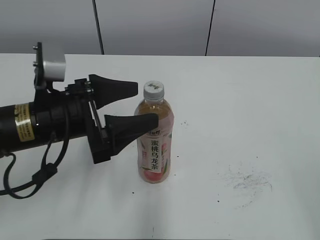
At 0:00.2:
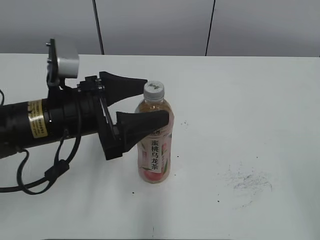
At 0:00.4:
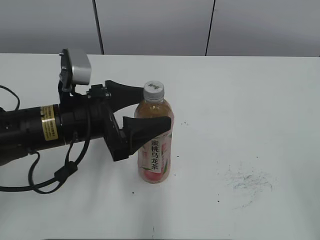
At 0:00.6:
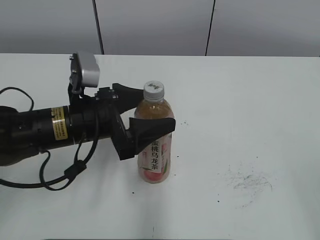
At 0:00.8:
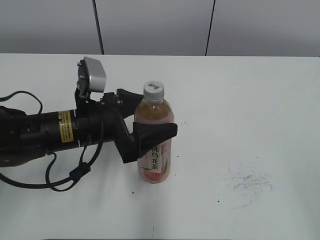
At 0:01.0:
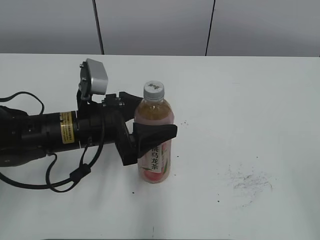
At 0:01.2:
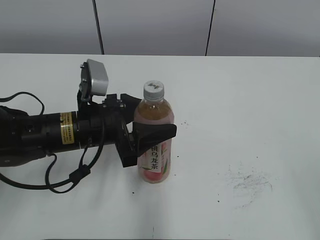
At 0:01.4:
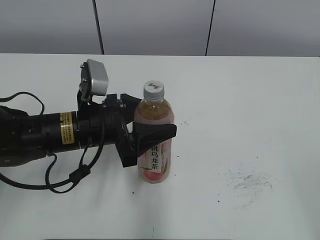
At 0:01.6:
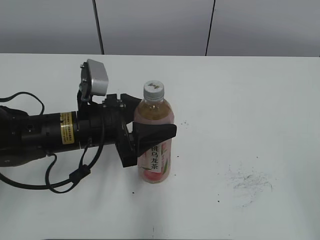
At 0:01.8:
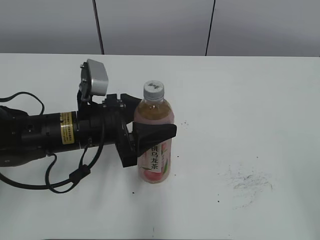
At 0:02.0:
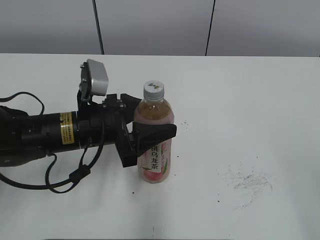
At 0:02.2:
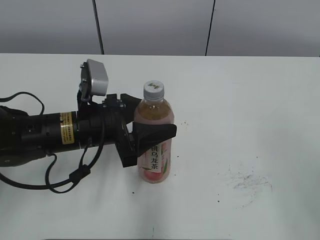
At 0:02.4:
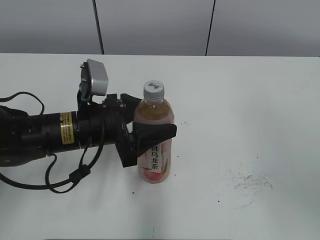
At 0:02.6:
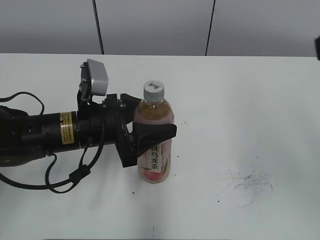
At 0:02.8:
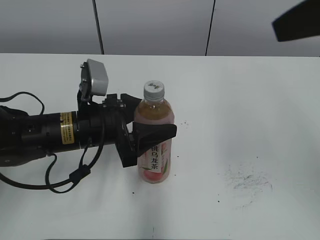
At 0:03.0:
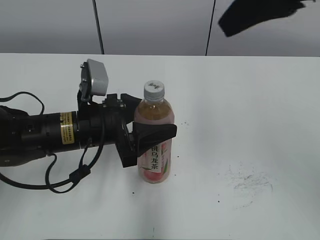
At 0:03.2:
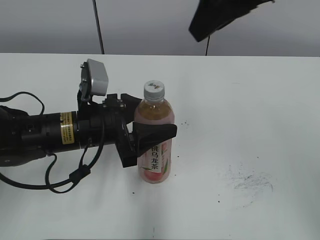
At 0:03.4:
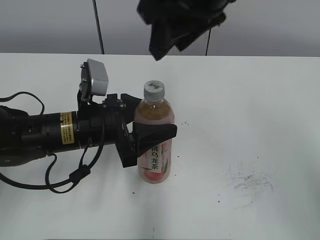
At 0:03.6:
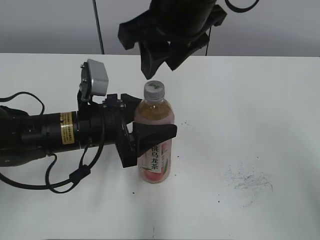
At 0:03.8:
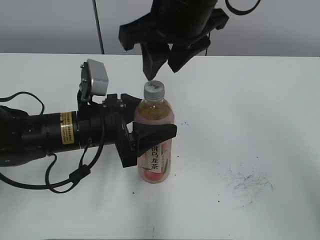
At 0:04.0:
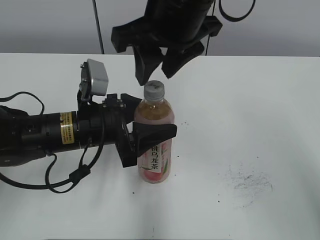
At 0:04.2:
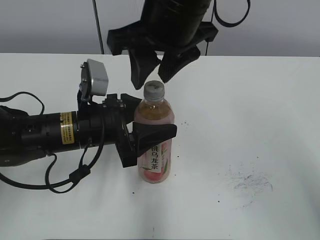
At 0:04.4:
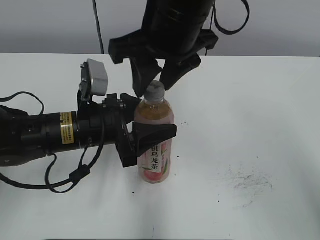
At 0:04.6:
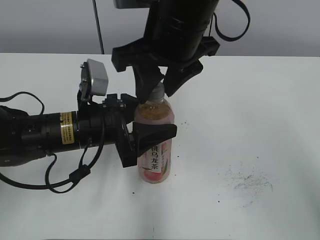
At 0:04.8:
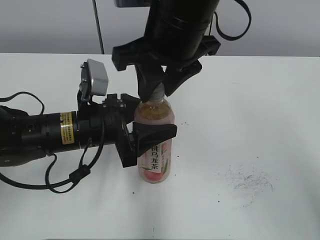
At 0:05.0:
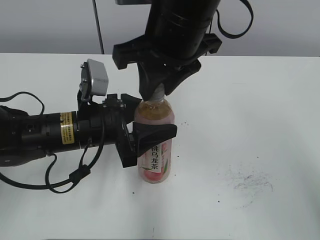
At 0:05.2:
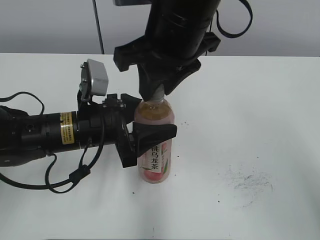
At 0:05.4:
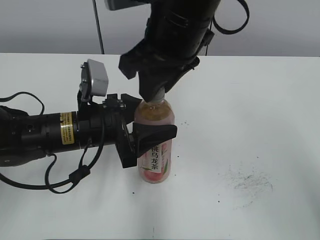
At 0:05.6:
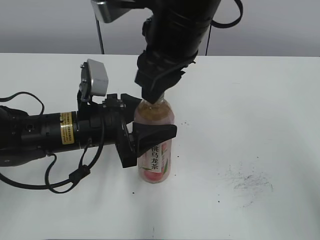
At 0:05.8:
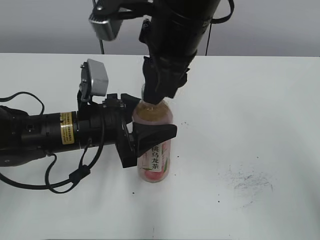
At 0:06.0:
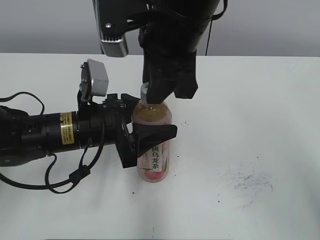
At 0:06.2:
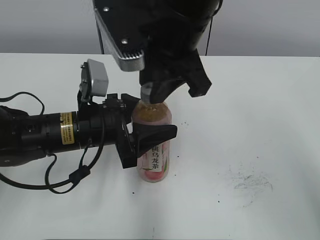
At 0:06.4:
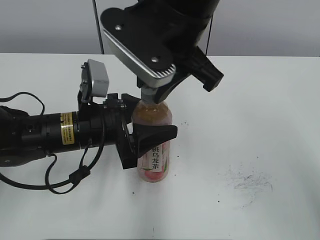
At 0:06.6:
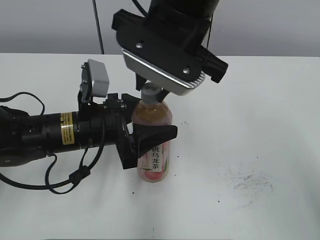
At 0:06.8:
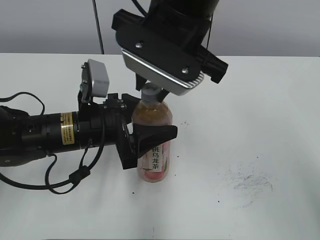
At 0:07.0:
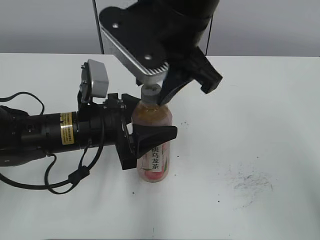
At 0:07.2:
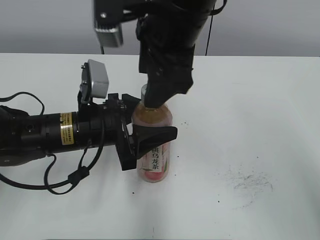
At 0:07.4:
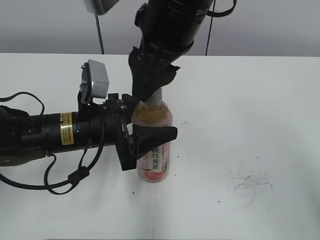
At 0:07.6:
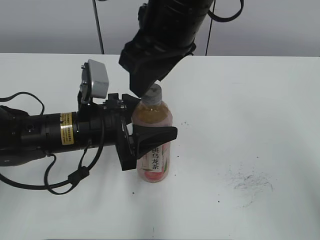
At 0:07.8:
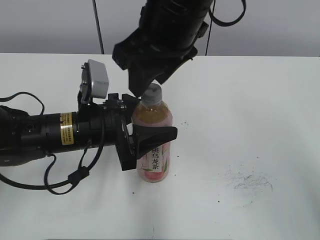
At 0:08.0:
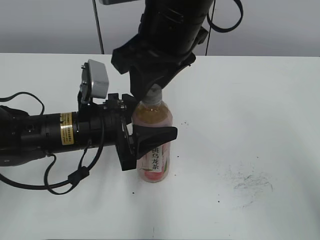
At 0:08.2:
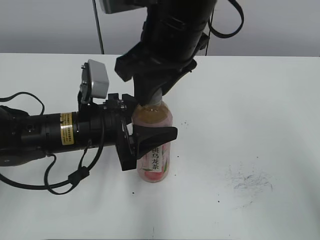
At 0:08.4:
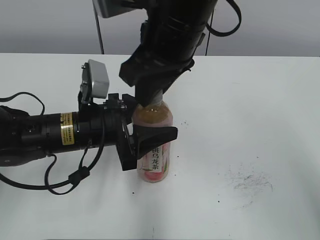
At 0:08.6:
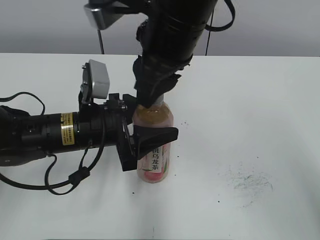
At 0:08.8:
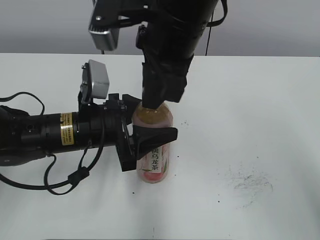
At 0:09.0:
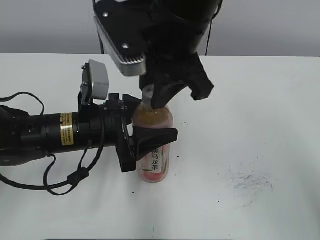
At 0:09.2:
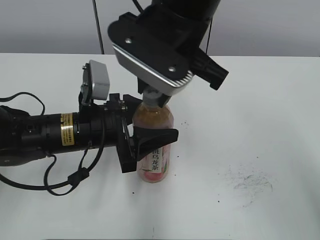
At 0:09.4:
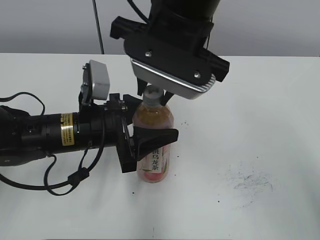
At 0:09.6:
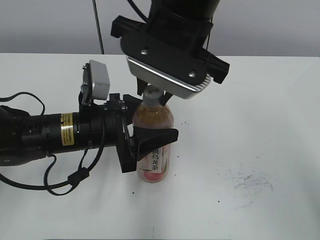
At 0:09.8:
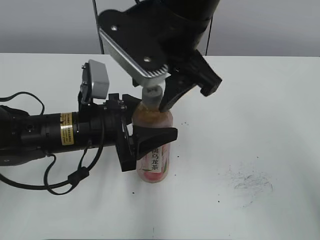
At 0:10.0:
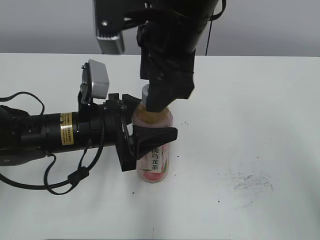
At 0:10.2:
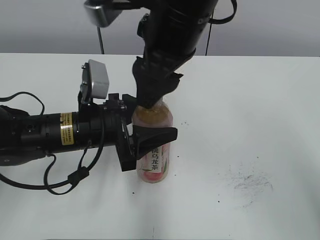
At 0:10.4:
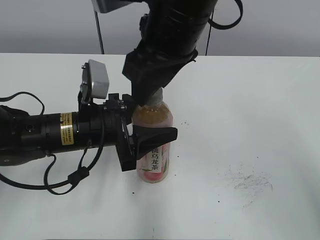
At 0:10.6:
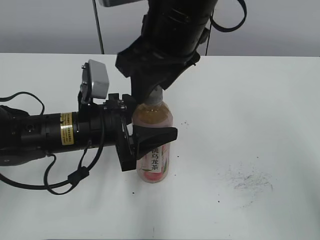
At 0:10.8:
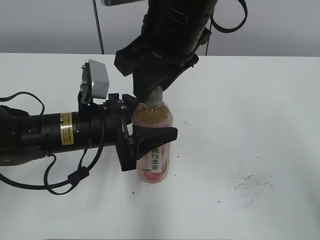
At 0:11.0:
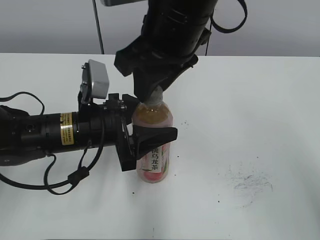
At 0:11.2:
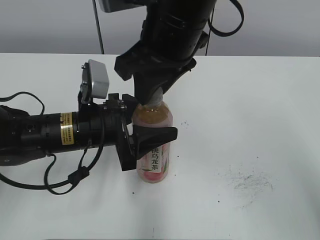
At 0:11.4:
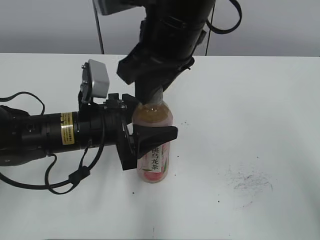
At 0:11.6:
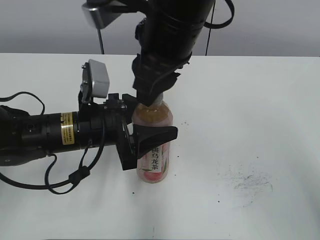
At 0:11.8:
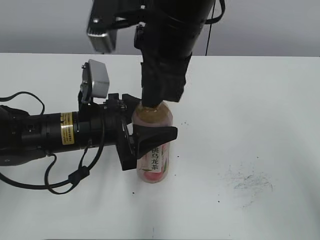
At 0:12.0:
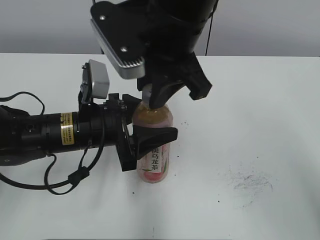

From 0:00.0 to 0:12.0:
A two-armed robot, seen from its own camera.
From 0:00.0 to 0:01.6: The left gripper moves approximately 5 cm, and closes.
From 0:01.6 to 0:03.0: The right gripper travels forward, to the left and upward by approximately 30 cm.
From 0:03.0 to 0:04.4: The right gripper moves to the left and downward, approximately 15 cm.
From 0:04.4 to 0:06.0: The right gripper closes its fingers.
From 0:06.0 to 0:07.6: The right gripper opens its fingers.
From 0:07.6 to 0:09.0: The right gripper closes its fingers.
From 0:09.0 to 0:10.4: The right gripper opens its fingers.
From 0:10.4 to 0:12.0: The right gripper closes up.

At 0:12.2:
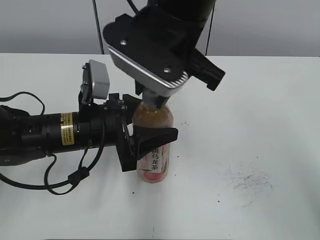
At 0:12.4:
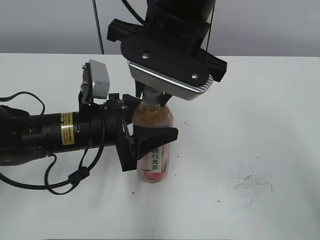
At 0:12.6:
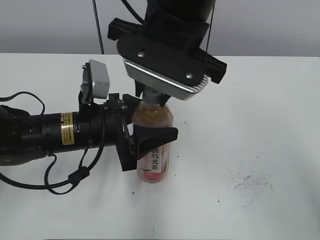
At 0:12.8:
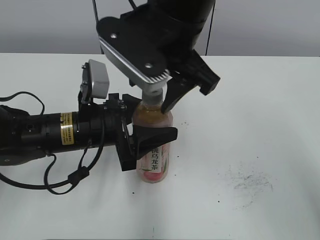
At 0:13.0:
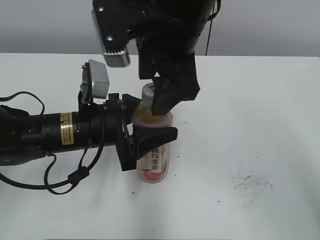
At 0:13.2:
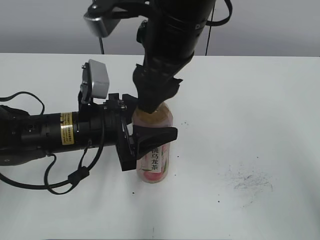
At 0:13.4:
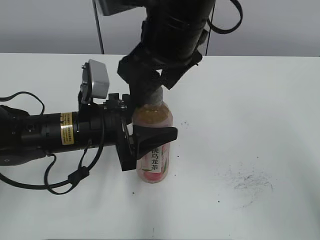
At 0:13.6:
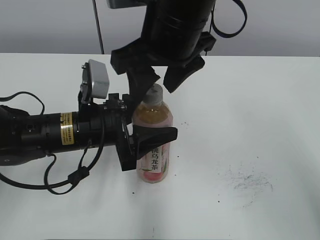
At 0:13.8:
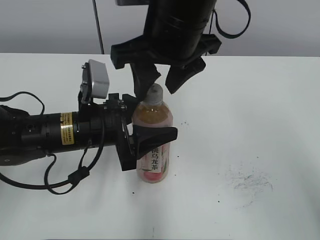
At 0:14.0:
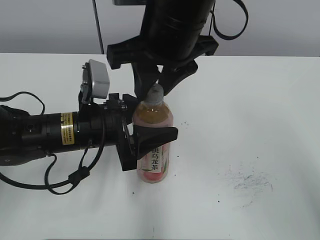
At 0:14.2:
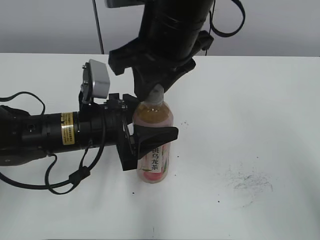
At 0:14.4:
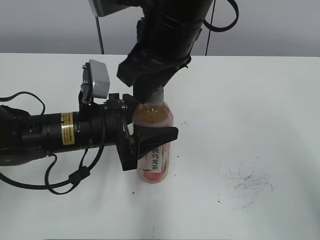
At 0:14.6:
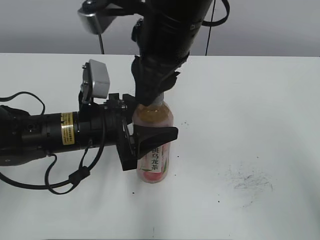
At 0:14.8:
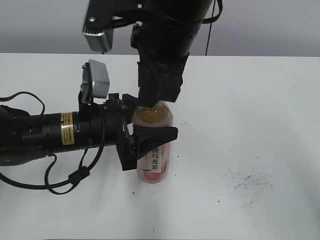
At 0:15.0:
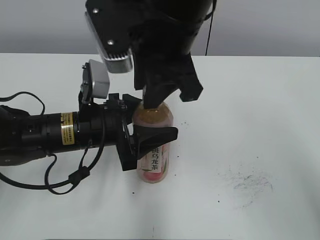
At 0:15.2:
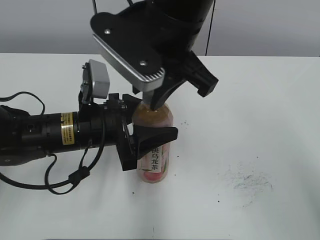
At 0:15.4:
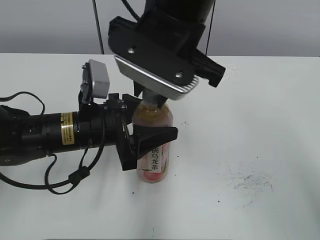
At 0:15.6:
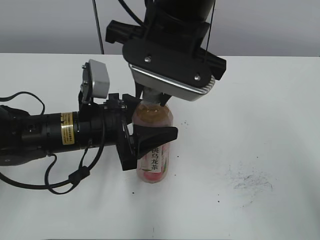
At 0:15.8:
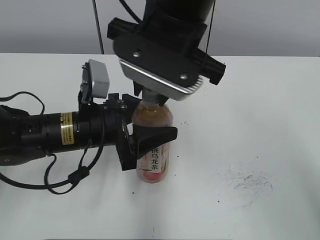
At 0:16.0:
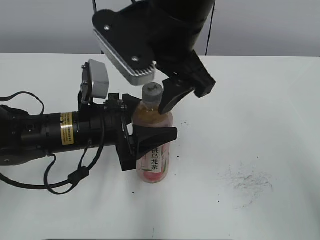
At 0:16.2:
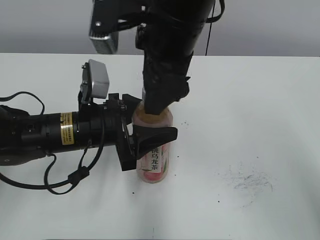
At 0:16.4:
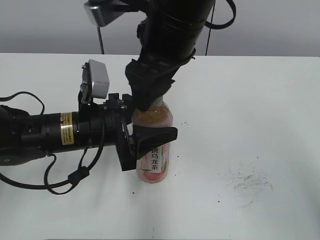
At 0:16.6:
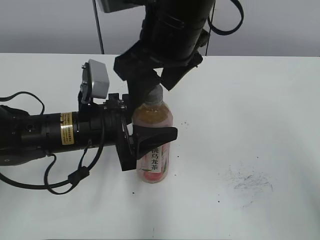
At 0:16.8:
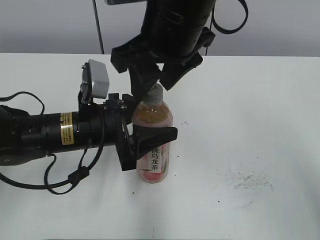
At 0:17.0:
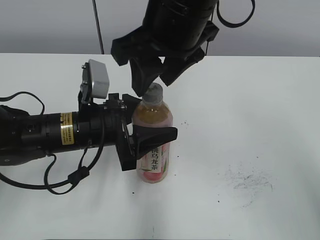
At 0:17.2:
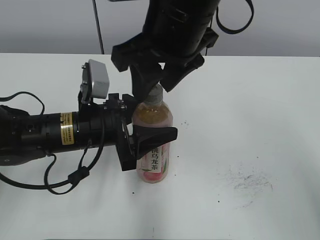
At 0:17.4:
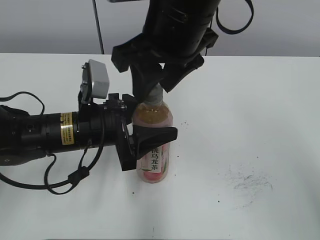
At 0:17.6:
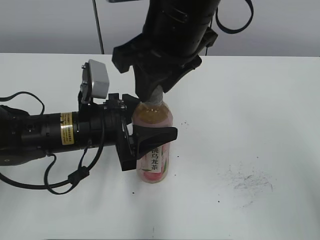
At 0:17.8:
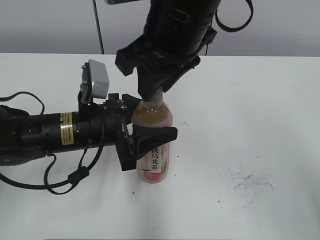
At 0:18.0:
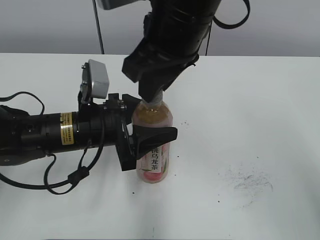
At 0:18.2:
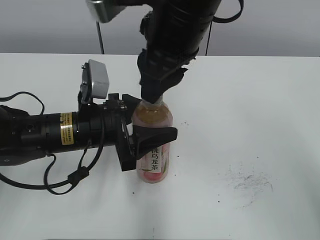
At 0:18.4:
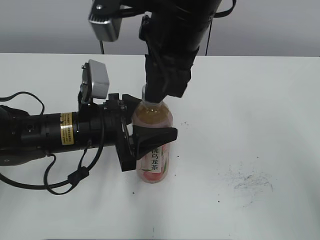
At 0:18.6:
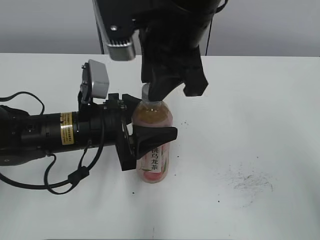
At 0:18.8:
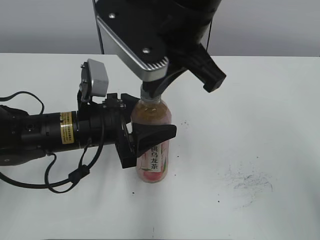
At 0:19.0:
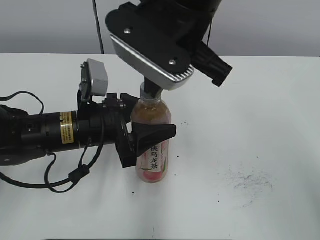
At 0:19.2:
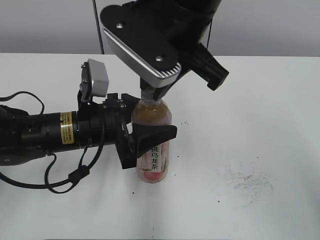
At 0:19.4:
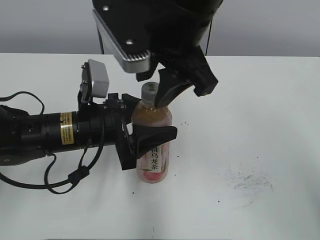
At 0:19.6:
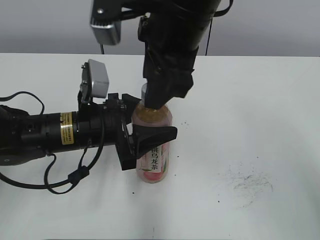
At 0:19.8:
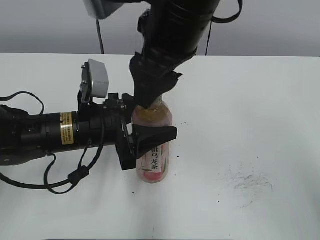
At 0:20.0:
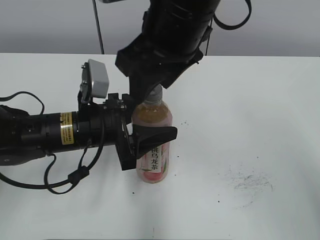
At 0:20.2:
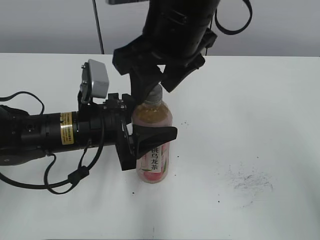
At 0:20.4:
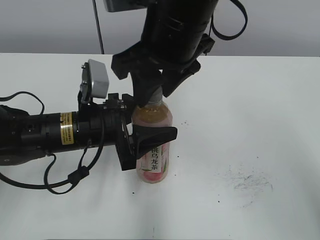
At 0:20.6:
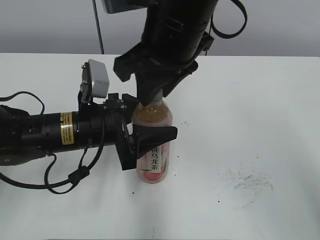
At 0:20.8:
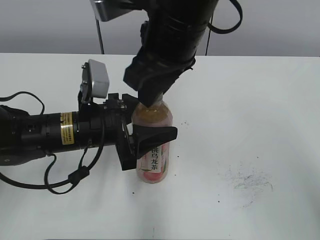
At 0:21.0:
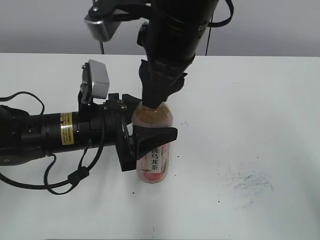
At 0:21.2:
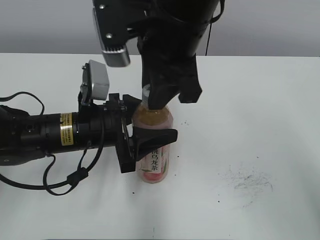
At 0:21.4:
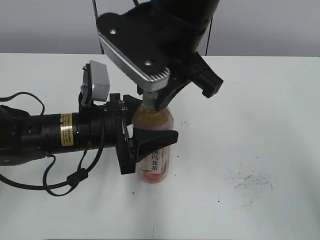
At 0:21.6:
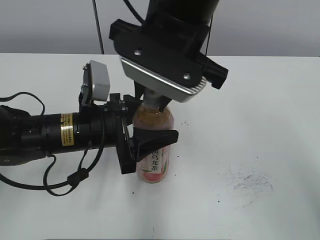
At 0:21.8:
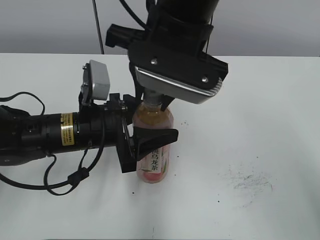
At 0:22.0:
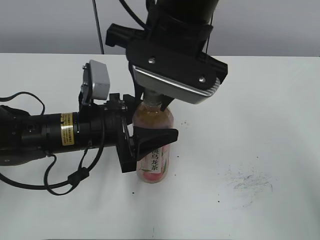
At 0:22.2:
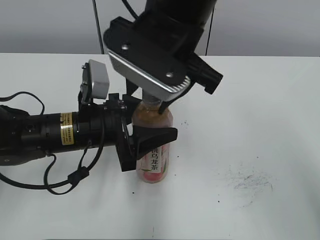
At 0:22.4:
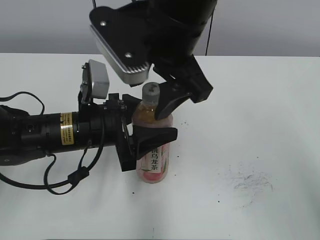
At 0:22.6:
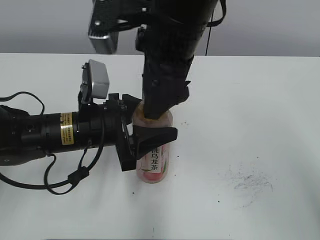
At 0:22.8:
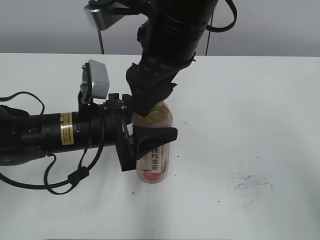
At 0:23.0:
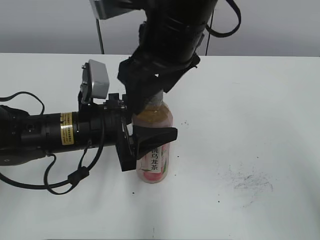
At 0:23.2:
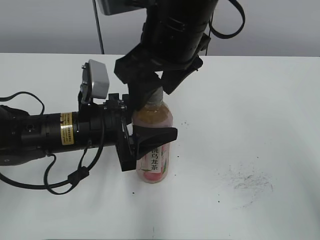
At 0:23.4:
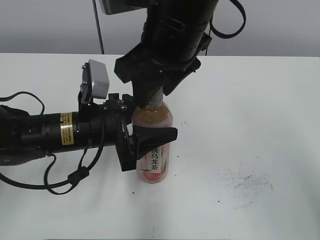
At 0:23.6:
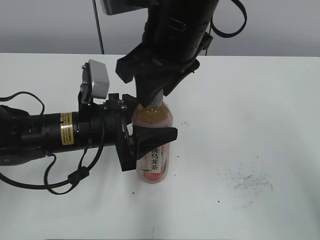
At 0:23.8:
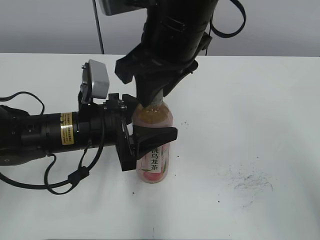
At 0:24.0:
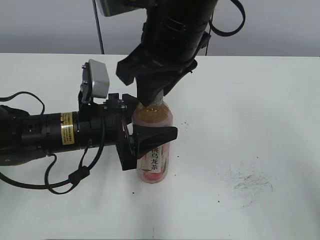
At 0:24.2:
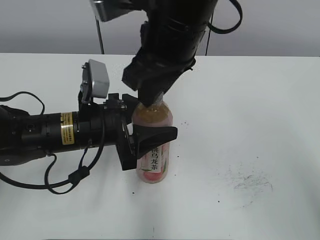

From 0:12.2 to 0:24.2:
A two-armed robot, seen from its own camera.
From 0:12.2 to 0:13.8: The right gripper opens its fingers.
From 0:13.8 to 0:15.2: The right gripper closes.
From 0:15.2 to 0:16.6: The right gripper opens.
From 0:16.6 to 0:18.2: The right gripper closes up.
From 0:18.2 to 0:19.8: The right gripper opens up.
From 0:19.8 to 0:21.2: The right gripper closes up.
From 0:21.2 to 0:22.6: The right gripper opens up.
From 0:22.6 to 0:24.2: The right gripper closes up.
